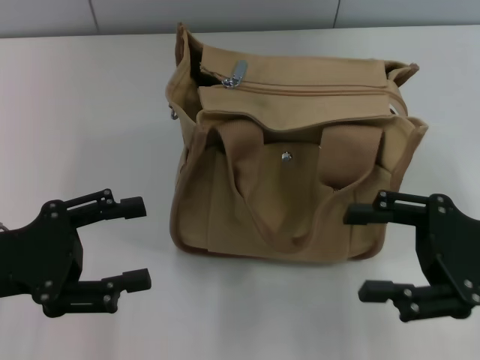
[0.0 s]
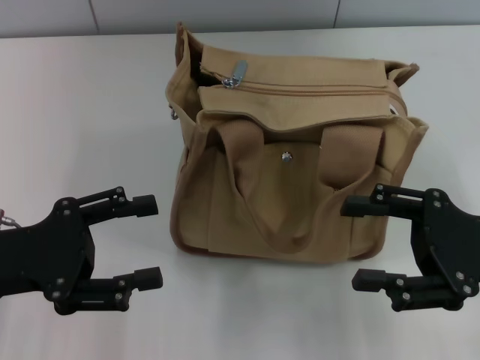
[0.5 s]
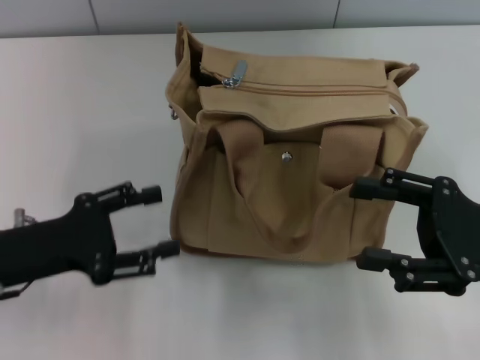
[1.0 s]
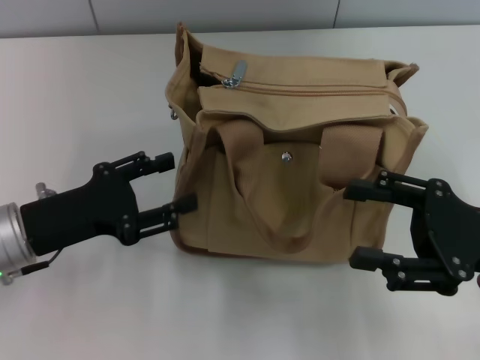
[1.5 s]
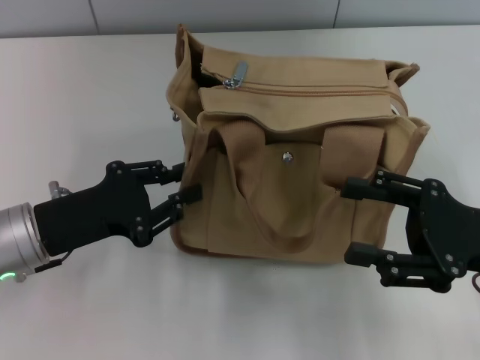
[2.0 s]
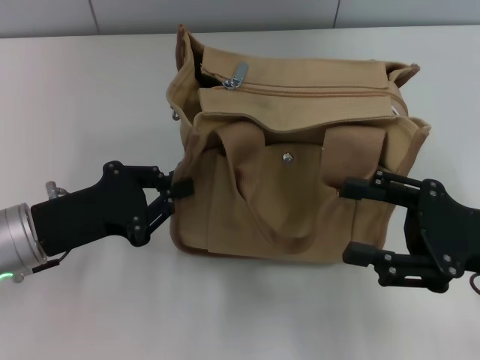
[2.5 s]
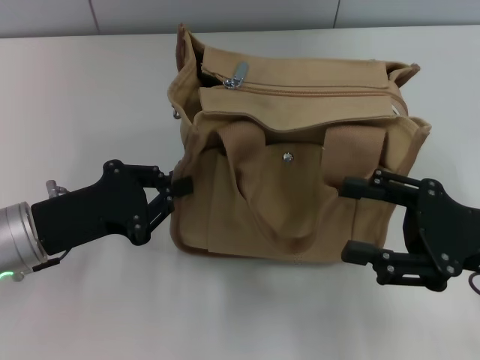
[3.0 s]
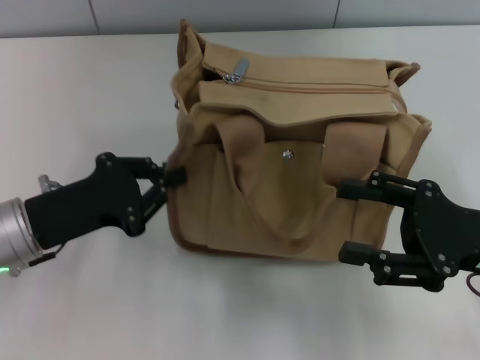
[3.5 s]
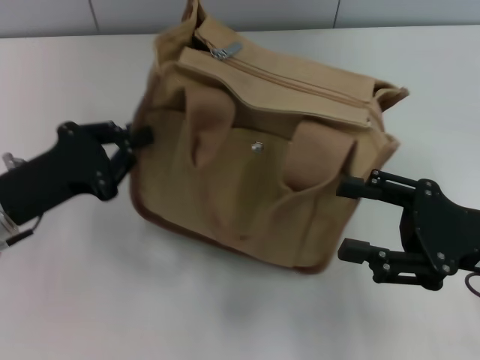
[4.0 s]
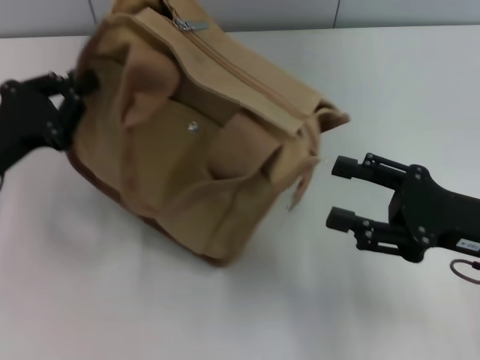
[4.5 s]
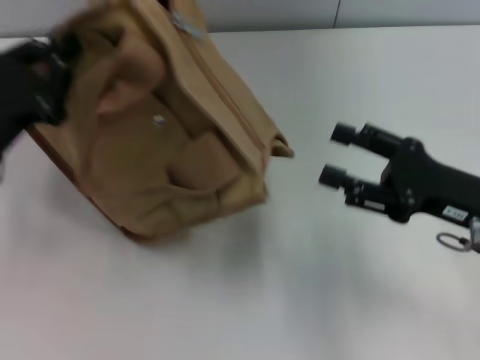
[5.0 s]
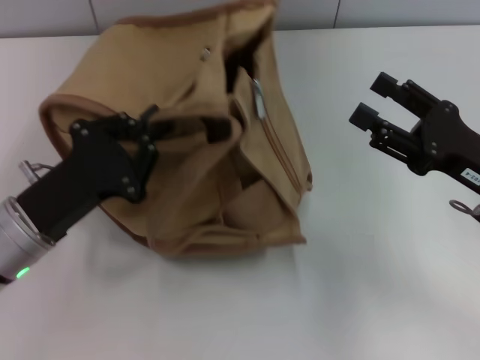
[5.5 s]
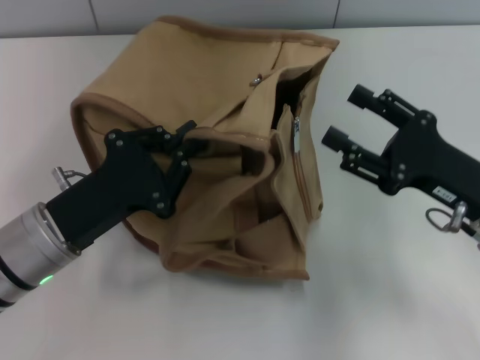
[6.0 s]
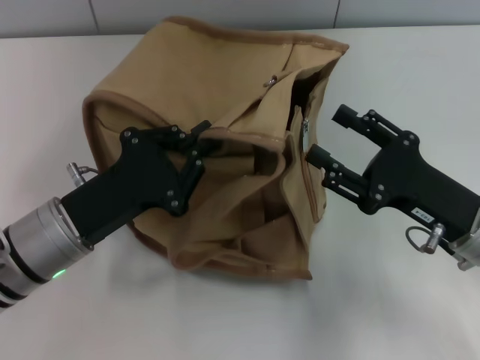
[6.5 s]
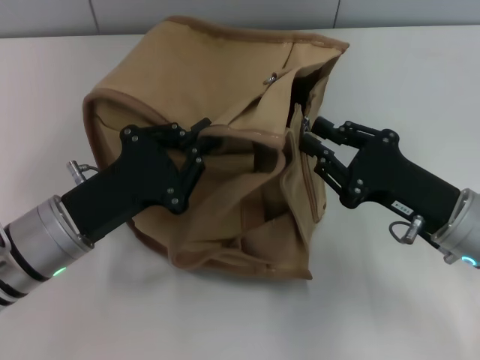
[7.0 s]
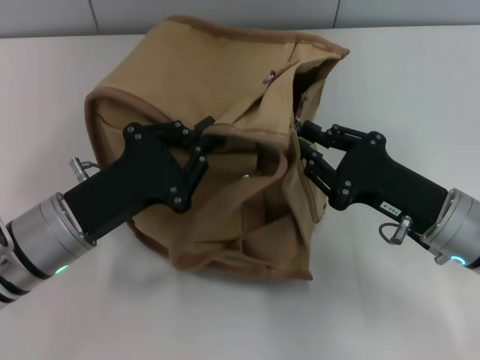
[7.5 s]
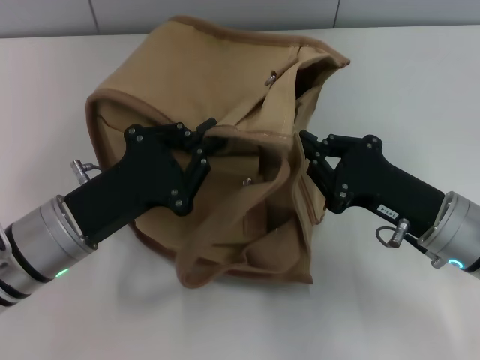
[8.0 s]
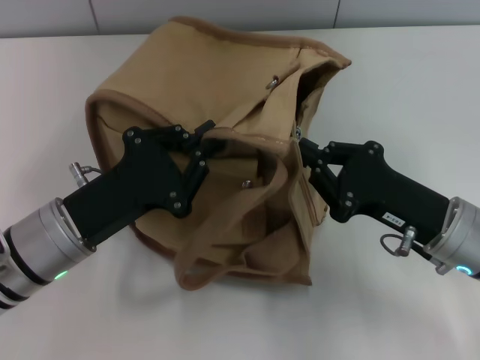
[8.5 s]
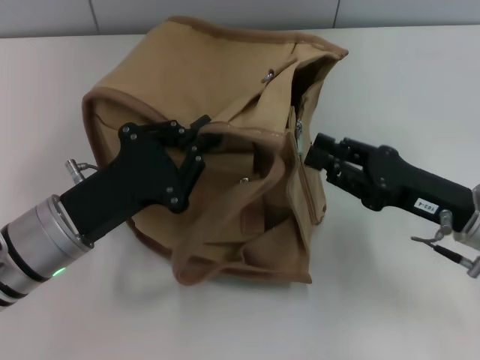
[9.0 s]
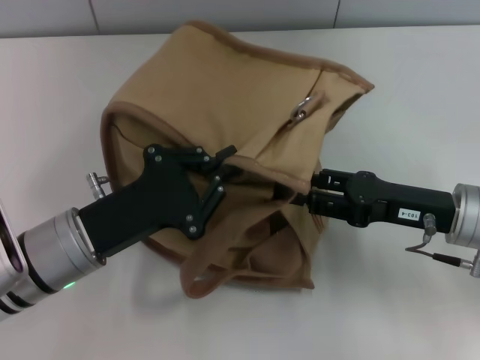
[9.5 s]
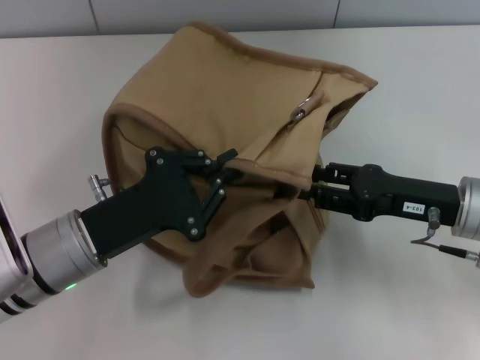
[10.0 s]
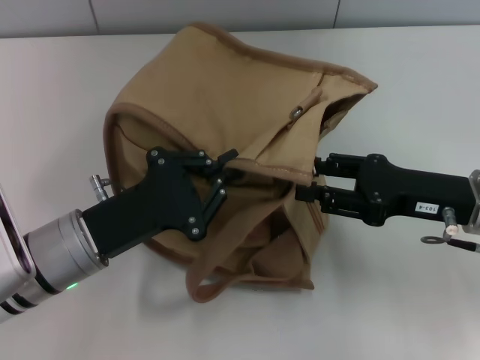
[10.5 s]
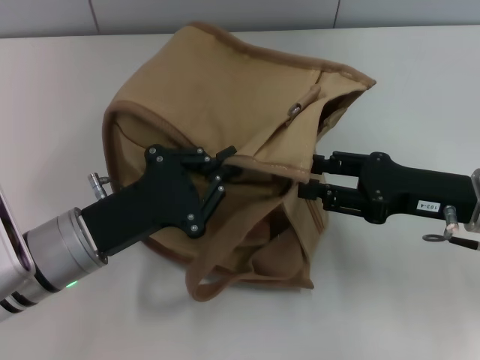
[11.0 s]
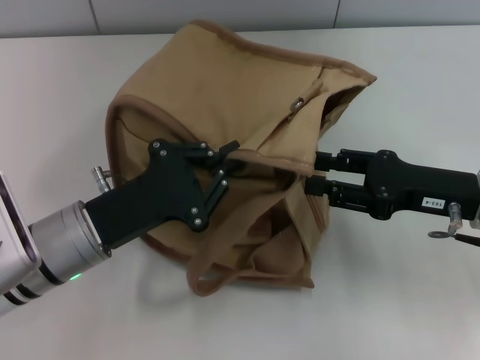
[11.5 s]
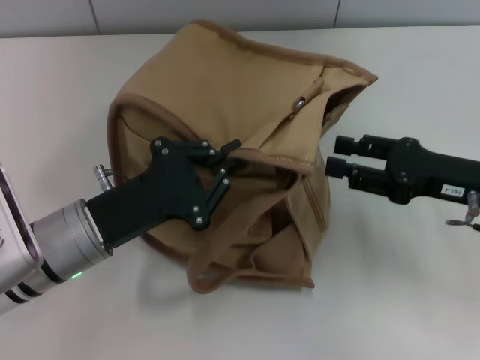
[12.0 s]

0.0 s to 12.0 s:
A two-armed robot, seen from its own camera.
0.0 to 2.0 s: The left gripper shifts approximately 5 cm to the right, and closes up.
2.0 to 4.0 s: The left gripper closes up.
4.0 to 6.0 s: The left gripper shifts roughly 5 cm to the right.
6.0 to 8.0 s: The right gripper closes up.
8.0 to 10.0 s: The right gripper opens.
10.0 to 12.0 s: The grippers make only small movements.

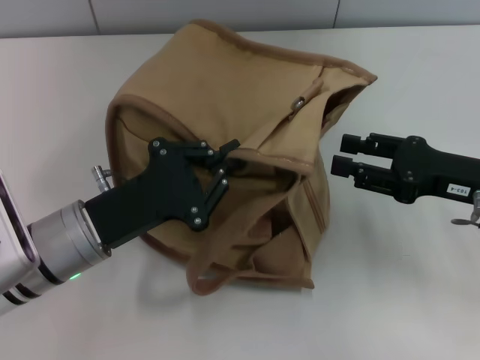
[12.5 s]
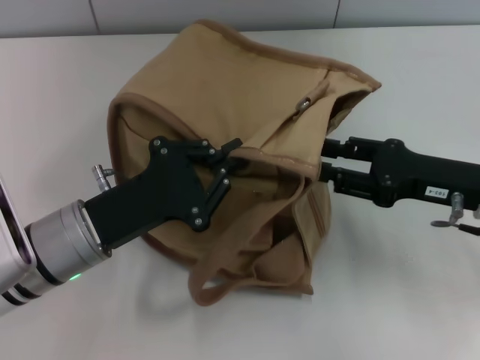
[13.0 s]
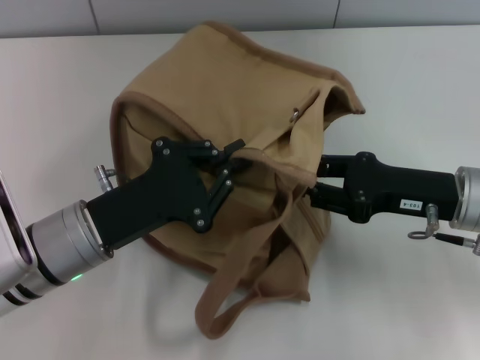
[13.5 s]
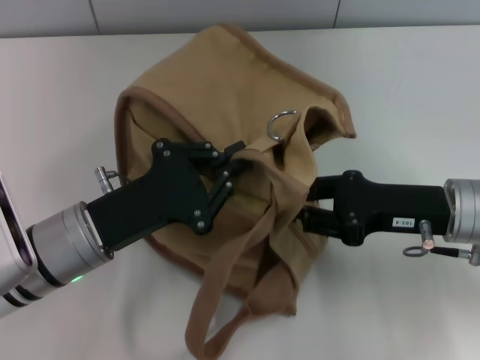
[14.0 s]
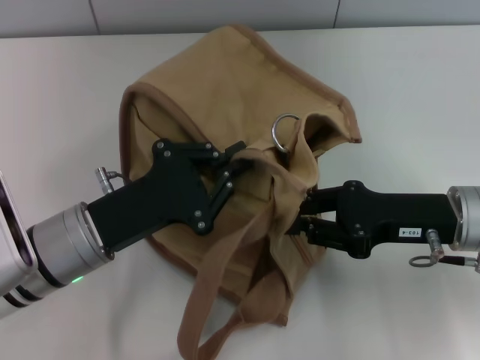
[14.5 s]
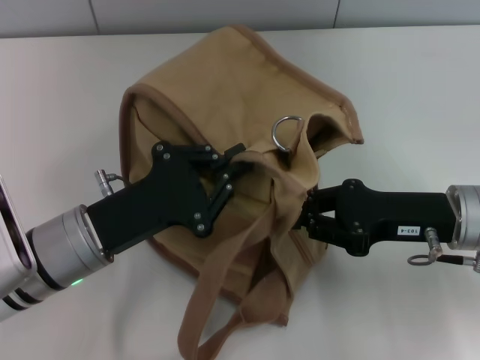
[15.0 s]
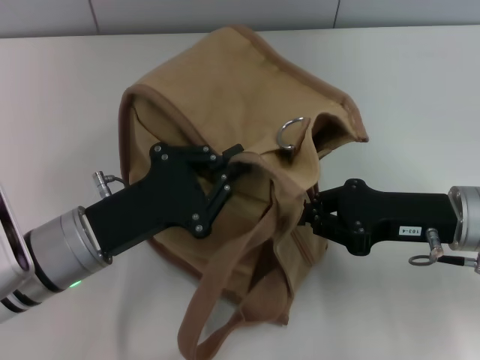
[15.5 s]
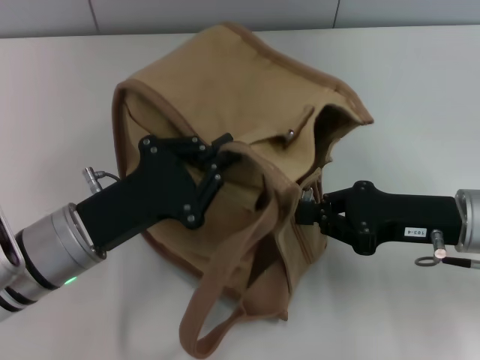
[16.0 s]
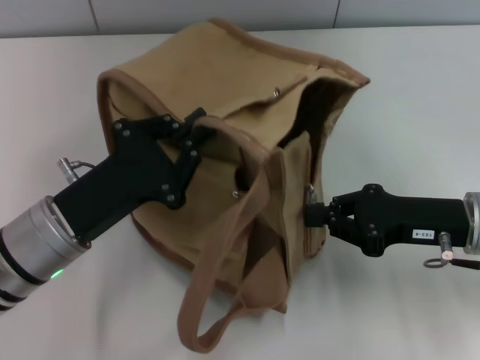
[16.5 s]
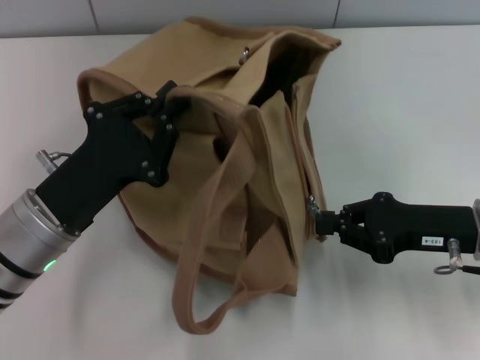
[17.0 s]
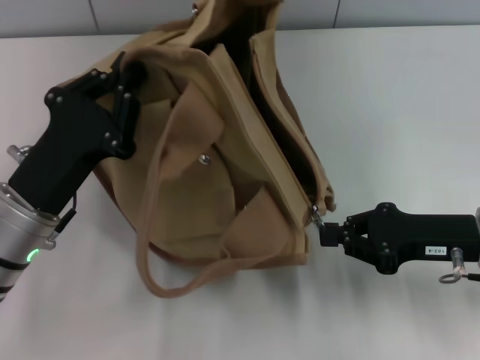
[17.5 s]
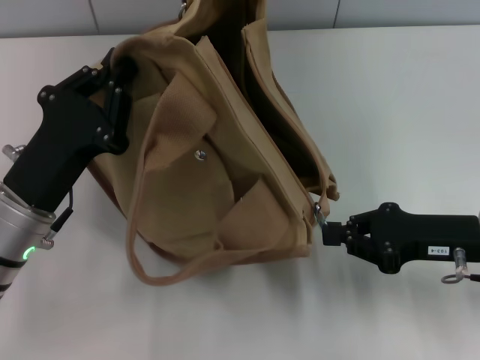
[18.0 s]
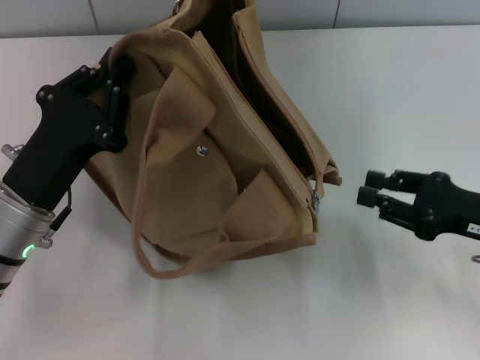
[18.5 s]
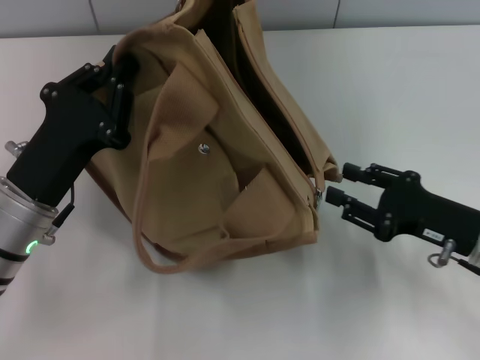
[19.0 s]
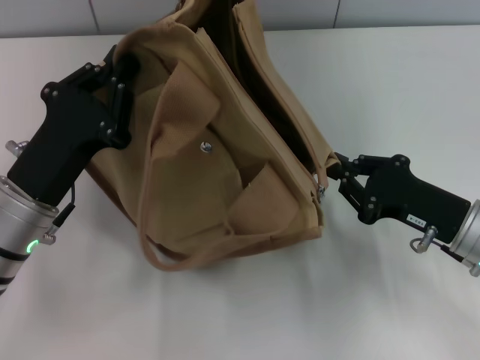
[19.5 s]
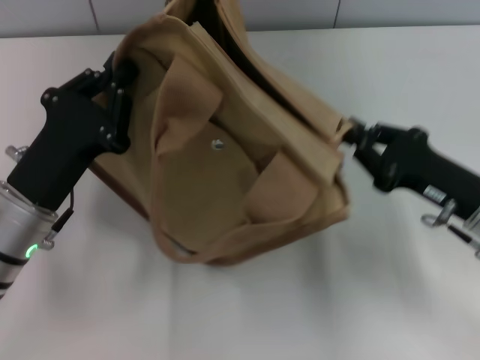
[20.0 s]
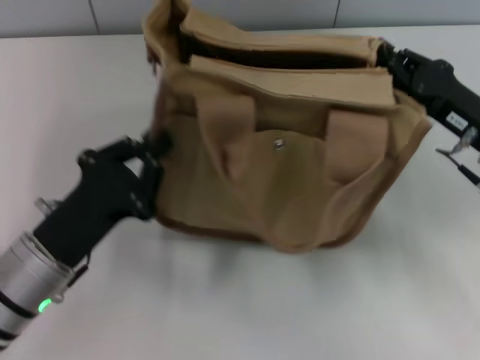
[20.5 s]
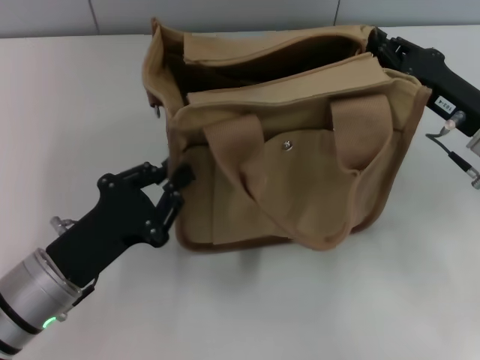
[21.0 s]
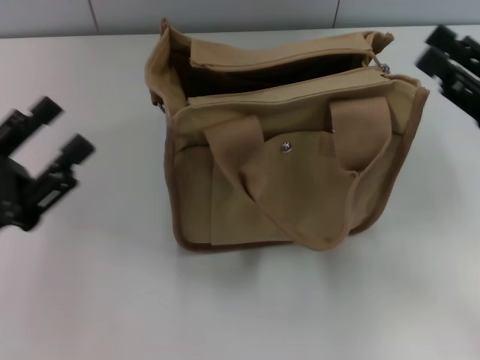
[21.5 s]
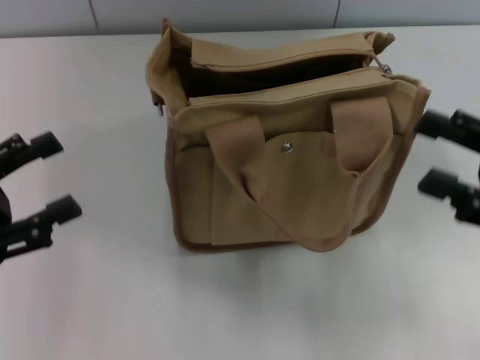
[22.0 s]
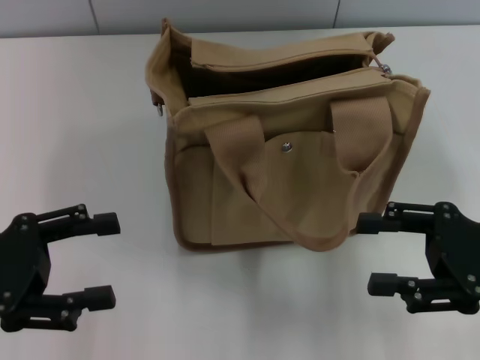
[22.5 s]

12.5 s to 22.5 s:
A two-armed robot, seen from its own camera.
Step, 12.5 to 18.5 s: Pull open the zipper with your right hand.
Step, 19.0 to 21.0 s: Grab the bag with your left hand.
12.5 to 14.5 s: The right gripper changes place by some 5 cm.
14.5 to 16.5 s: The right gripper closes.
16.5 to 18.5 s: The right gripper is displaced to the right by roughly 5 cm.
18.5 to 20.5 s: The right gripper goes roughly 5 cm forward, and opens, then closes again.
20.5 to 22.5 s: The right gripper moves backward, some 10 cm, and opens; the left gripper goes roughly 10 cm to the left and upward, and opens.

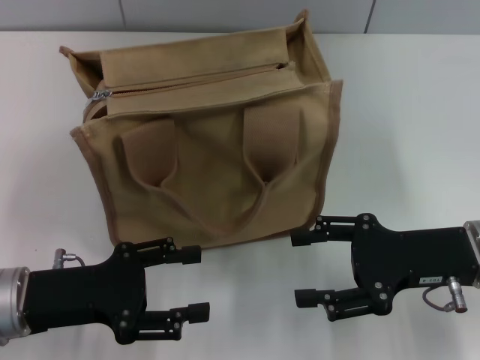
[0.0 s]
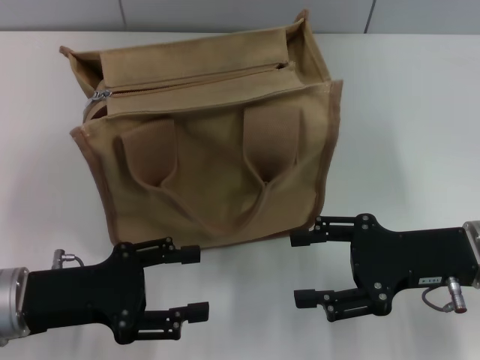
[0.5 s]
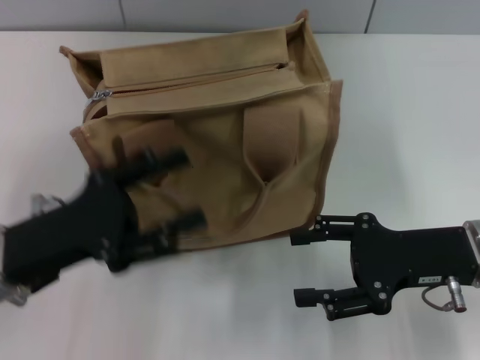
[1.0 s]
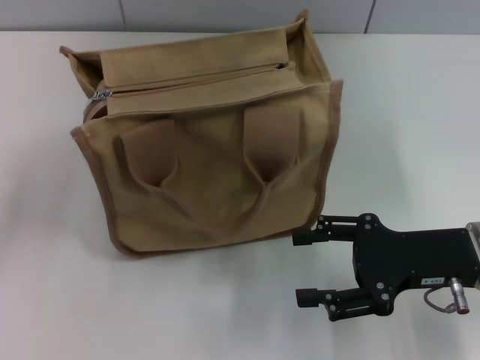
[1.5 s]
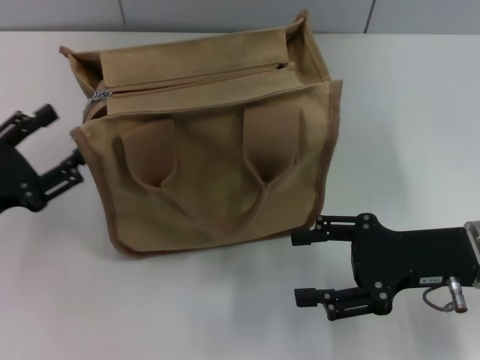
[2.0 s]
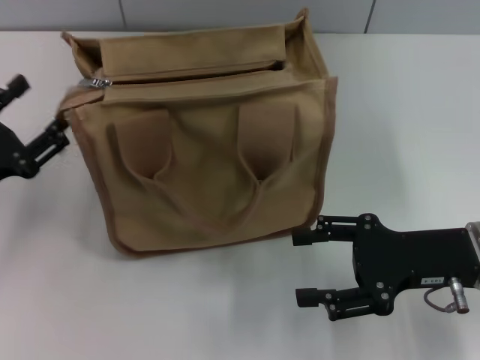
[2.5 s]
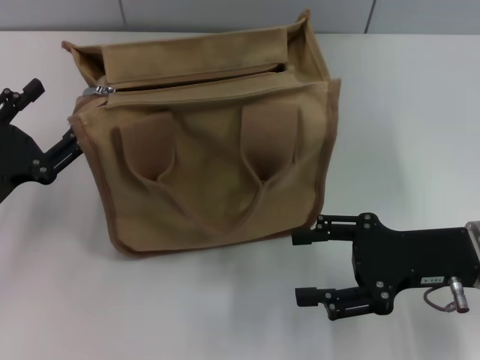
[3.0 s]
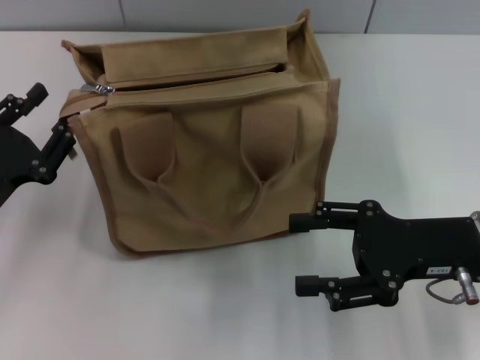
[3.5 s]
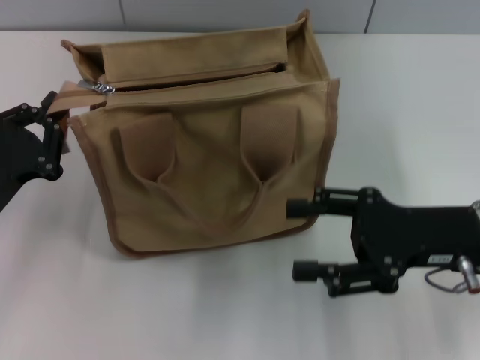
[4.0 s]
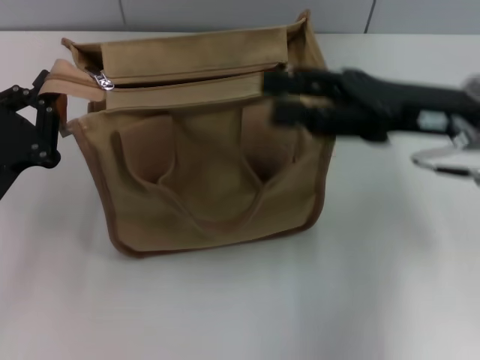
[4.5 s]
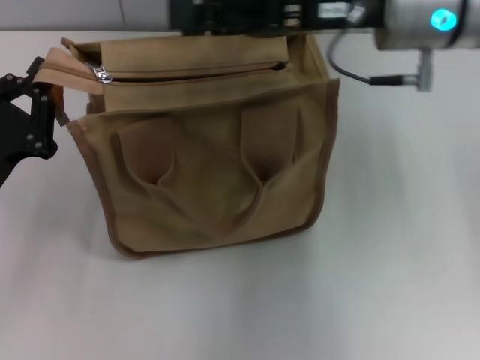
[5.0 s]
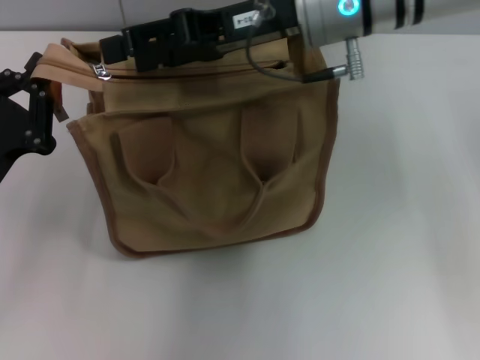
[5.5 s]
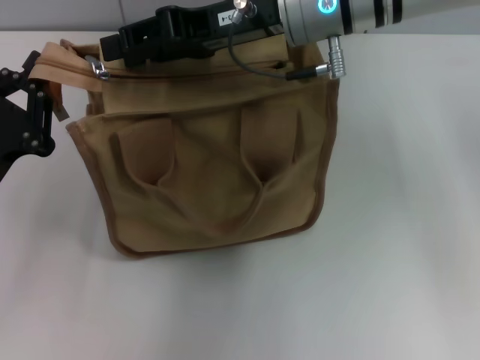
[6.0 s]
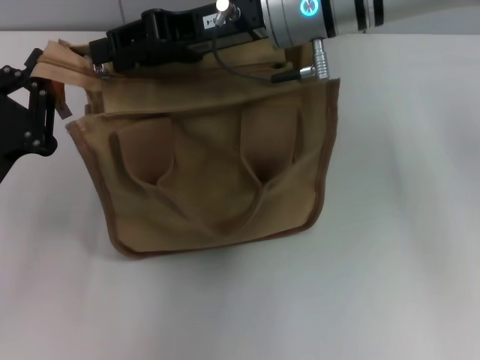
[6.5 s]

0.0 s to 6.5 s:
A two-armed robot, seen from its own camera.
0.0 to 2.0 s: The left gripper is displaced to the left by roughly 5 cm.
2.0 to 4.5 s: The left gripper closes. The right gripper travels upward and forward by some 10 cm.
4.5 to 6.5 s: The right gripper is displaced to the left and forward by approximately 15 cm, and closes its fingers.
